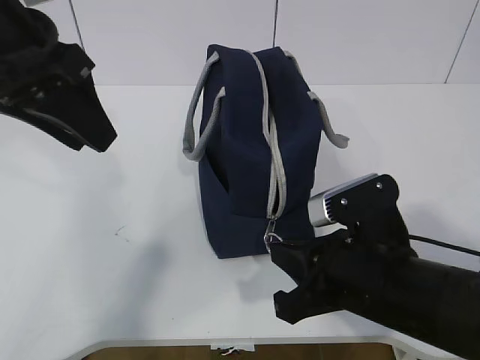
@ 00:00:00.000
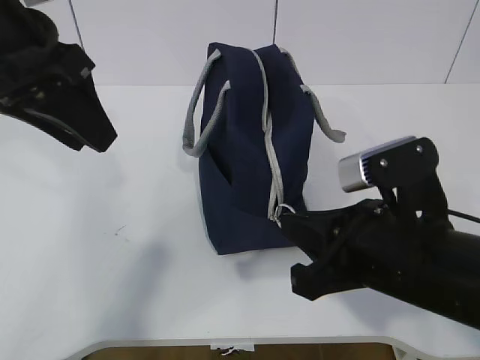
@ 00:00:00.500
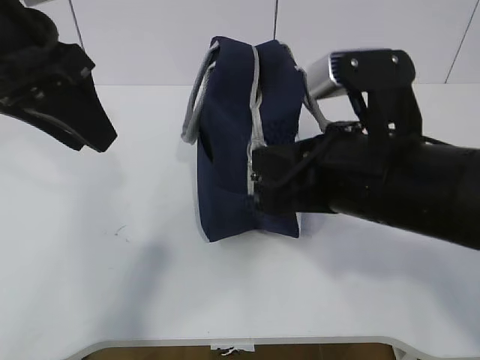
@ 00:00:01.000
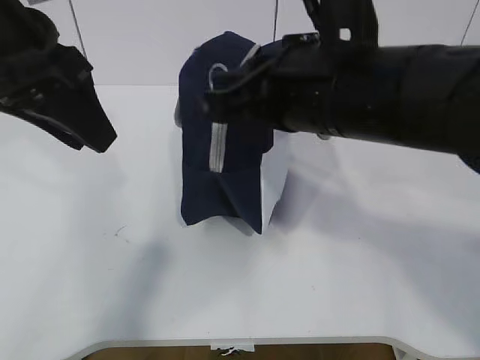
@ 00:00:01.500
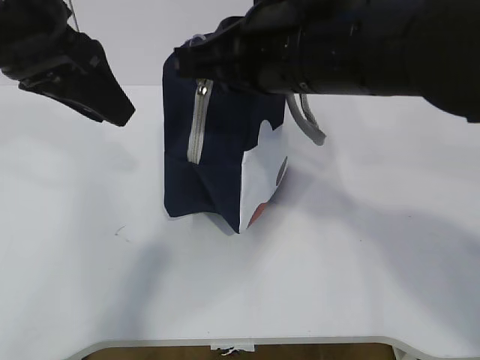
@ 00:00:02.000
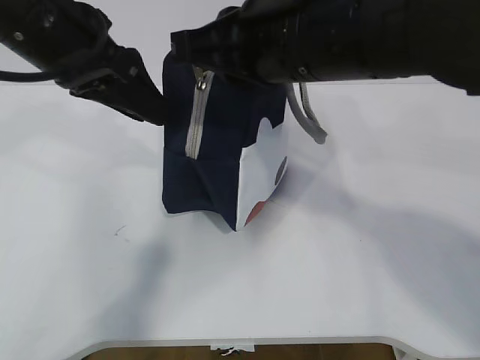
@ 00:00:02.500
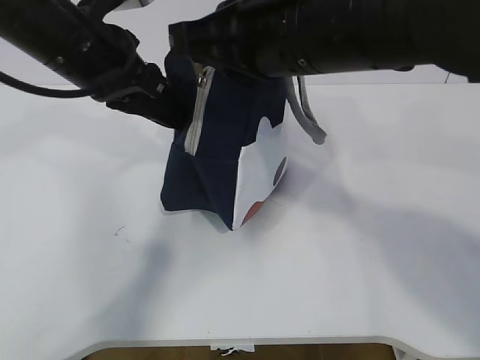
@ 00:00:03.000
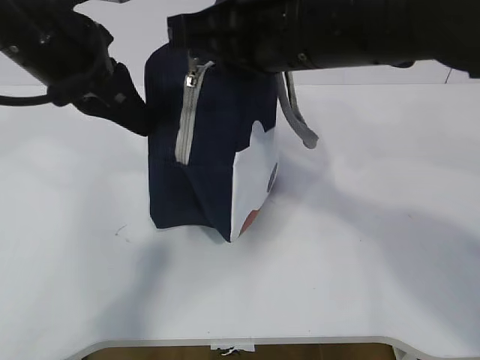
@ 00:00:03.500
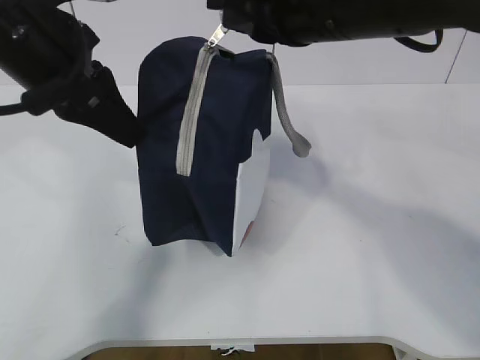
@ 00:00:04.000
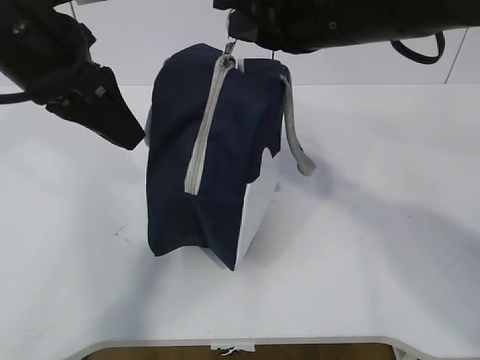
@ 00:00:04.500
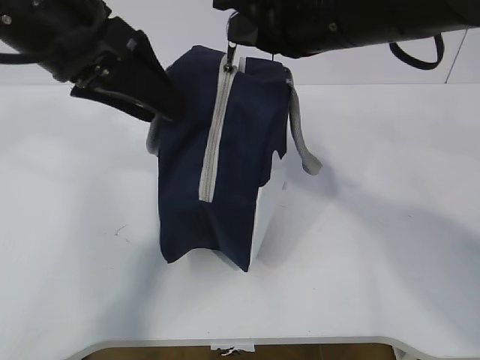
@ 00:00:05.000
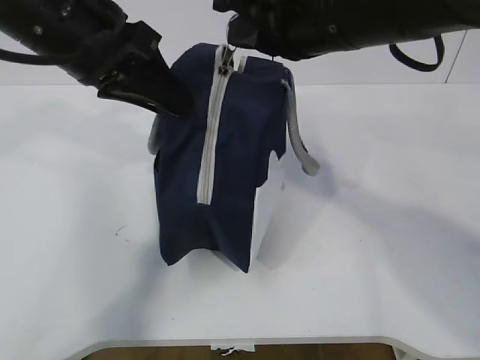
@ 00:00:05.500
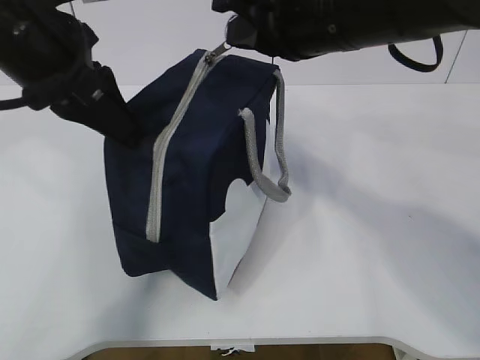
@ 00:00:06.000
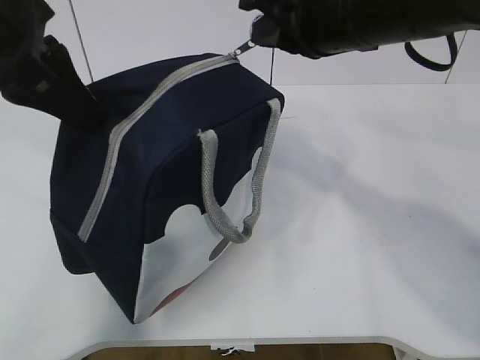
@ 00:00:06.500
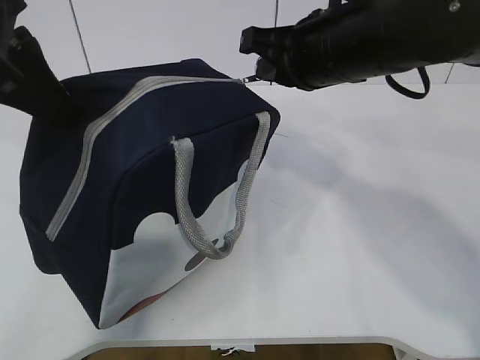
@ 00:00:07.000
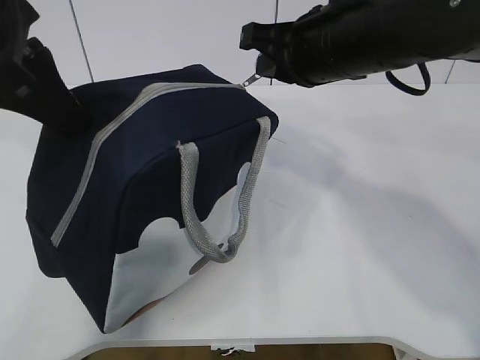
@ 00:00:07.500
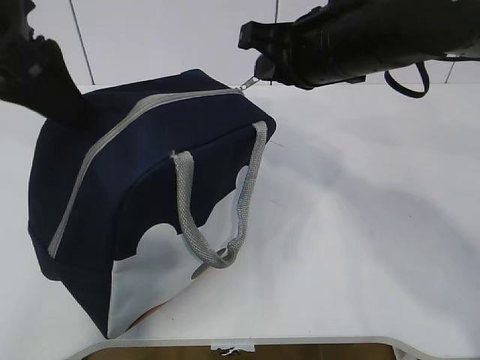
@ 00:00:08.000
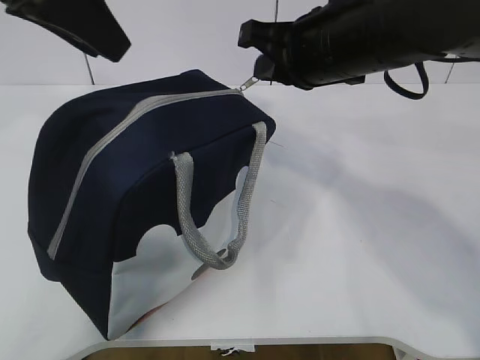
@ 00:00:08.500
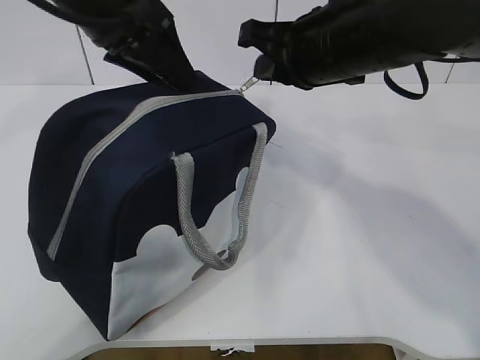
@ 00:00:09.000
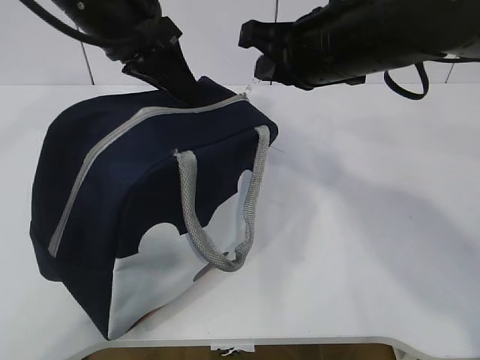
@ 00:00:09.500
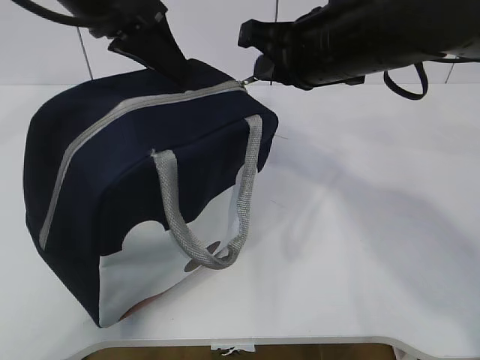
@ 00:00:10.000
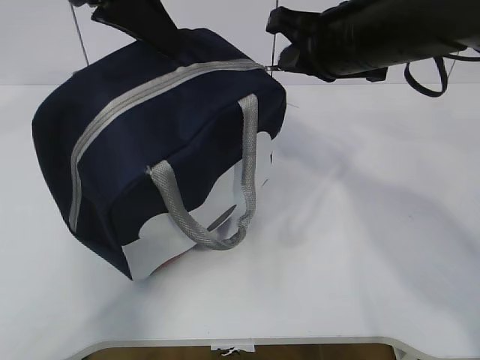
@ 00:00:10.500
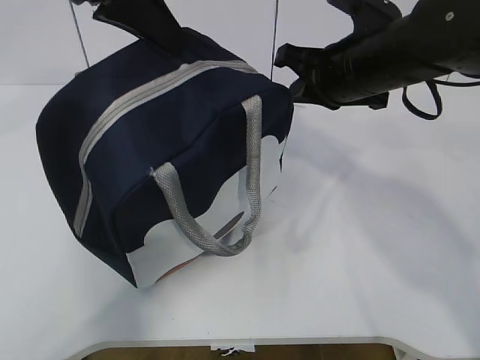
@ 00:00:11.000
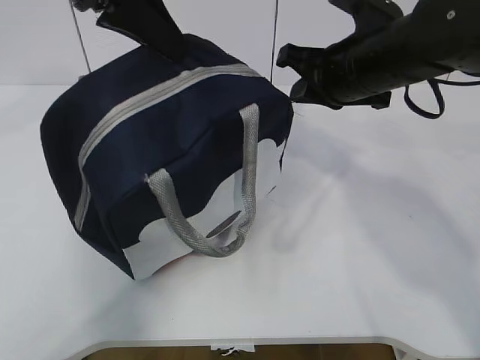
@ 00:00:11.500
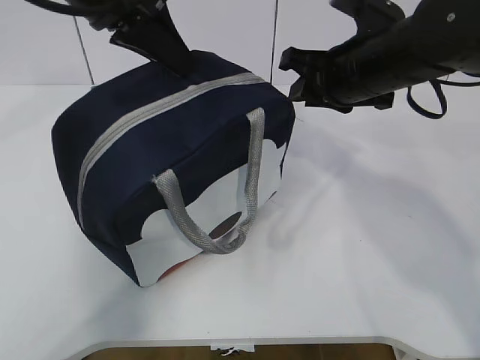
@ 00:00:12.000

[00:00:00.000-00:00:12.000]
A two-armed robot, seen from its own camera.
Step, 00:00:00.500 to 00:00:03.500: Pull the zipper with your right hand.
00:00:00.000 to 00:00:02.000: The right gripper is displaced upward and forward by some 20 cm.
00:00:02.000 to 00:00:04.000: The left gripper closes its fingers.
00:00:04.000 to 00:00:06.000: The left gripper opens, then closes again.
00:00:06.000 to 00:00:08.000: The right gripper changes place by roughly 5 cm. Meanwhile the left gripper shifts by roughly 5 cm, and opens its fingers.
00:00:08.000 to 00:00:10.000: The left gripper is displaced forward and to the right by some 10 cm, and closes up.
00:00:10.000 to 00:00:12.000: The right gripper changes place by about 5 cm, and opens up.

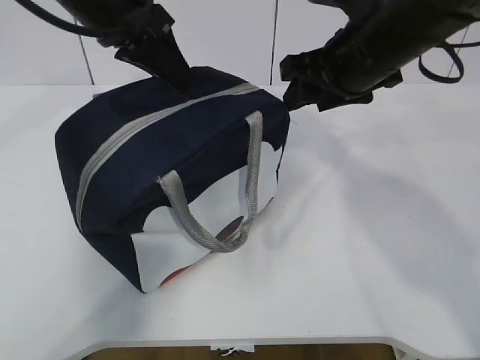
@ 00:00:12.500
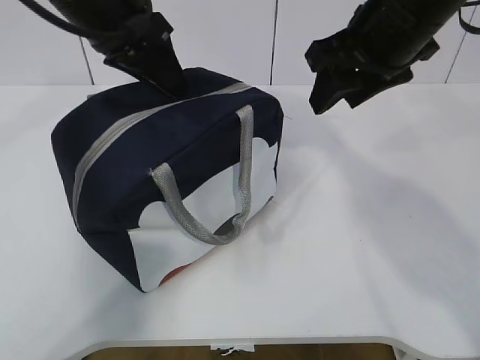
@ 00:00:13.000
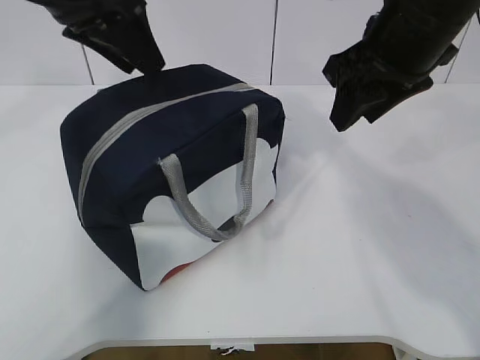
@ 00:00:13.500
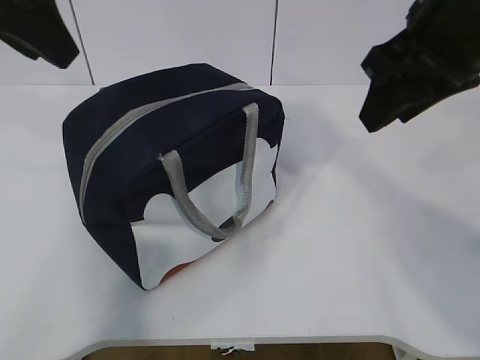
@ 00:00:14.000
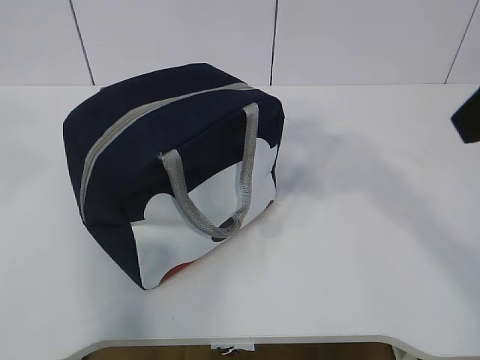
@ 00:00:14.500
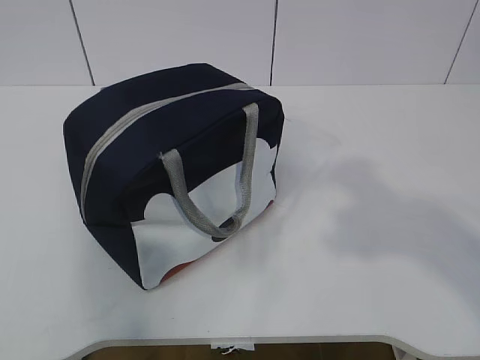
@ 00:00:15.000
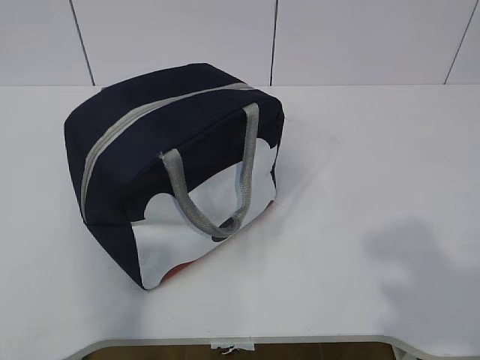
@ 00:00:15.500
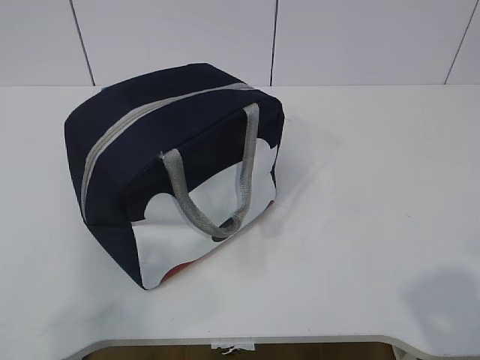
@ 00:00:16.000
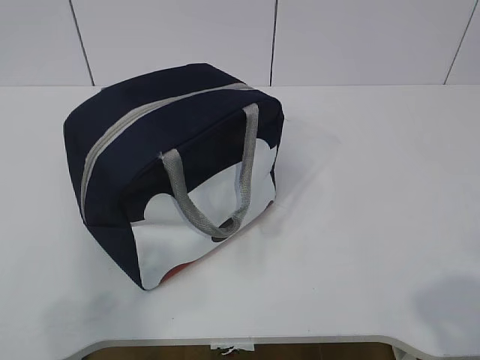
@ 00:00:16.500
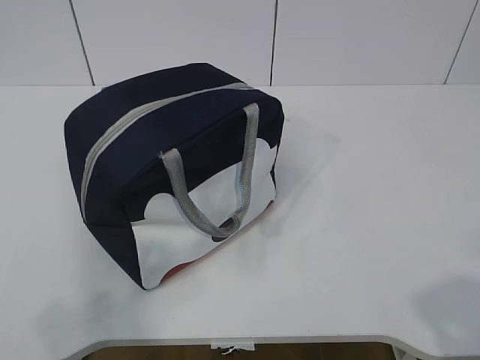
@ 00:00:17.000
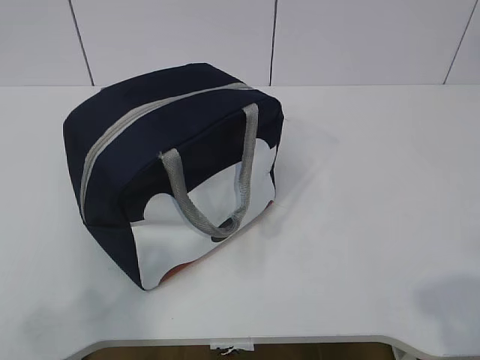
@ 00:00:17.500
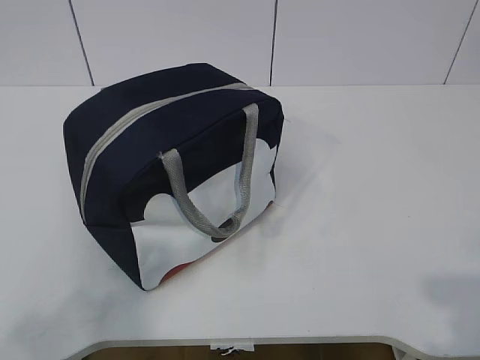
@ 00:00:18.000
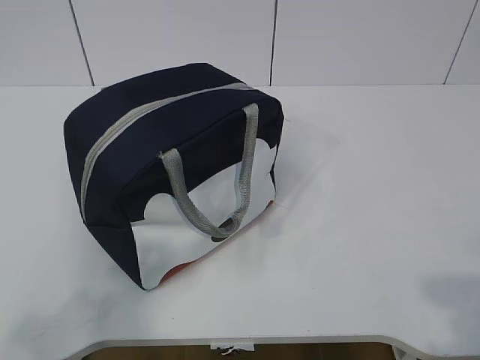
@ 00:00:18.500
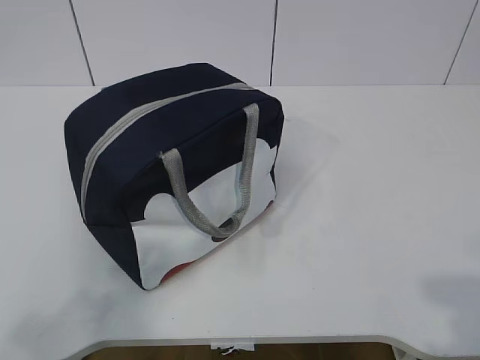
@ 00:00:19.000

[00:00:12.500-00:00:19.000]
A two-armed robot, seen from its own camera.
00:00:12.500 to 00:00:14.500: The left gripper is displaced backward, to the left and upward by approximately 20 cm, and opens. The right gripper shifts approximately 20 cm backward and upward.
00:00:14.500 to 00:00:17.000: The right gripper shifts some 25 cm backward and downward, while the left gripper heads backward, downward and to the left, covering some 25 cm.
